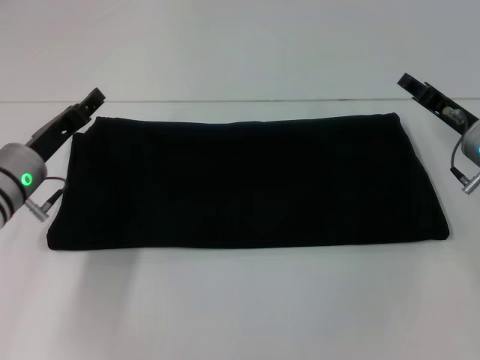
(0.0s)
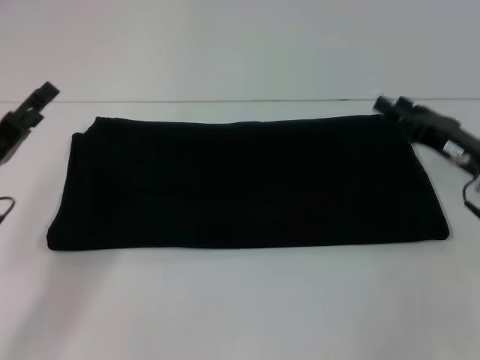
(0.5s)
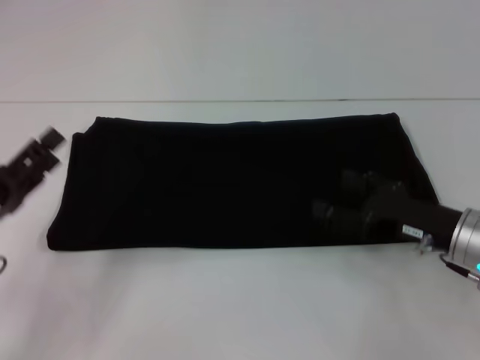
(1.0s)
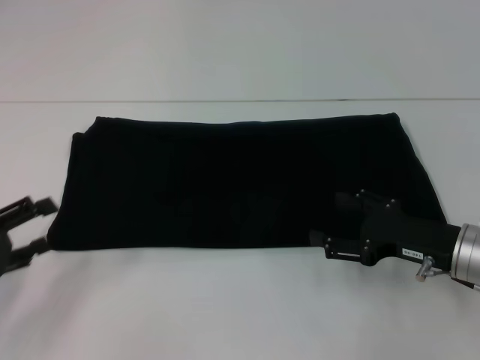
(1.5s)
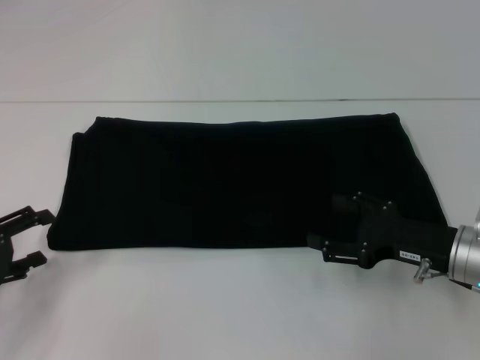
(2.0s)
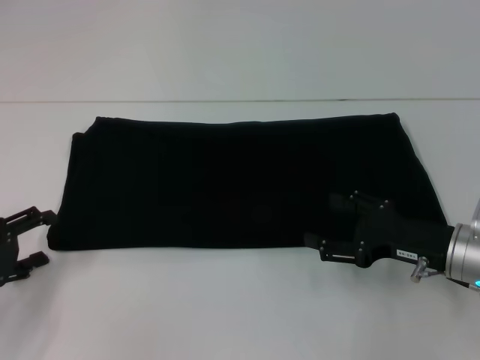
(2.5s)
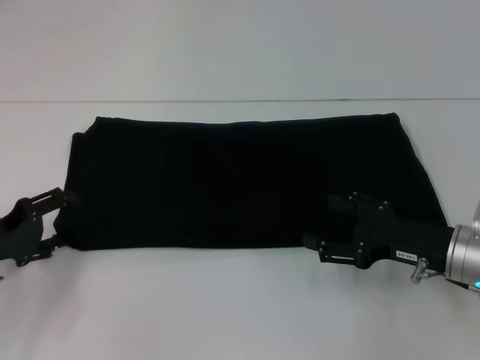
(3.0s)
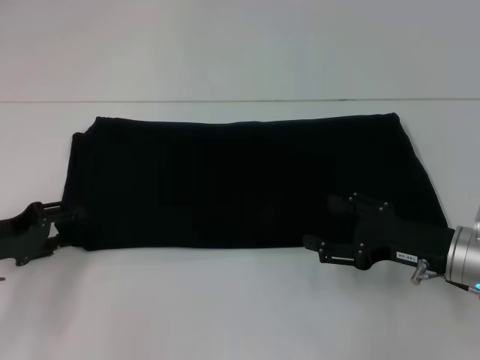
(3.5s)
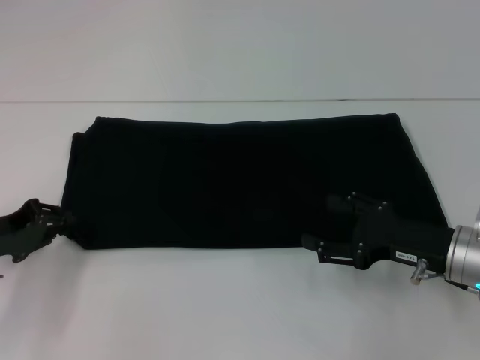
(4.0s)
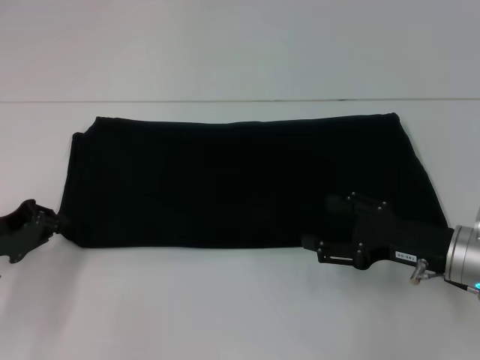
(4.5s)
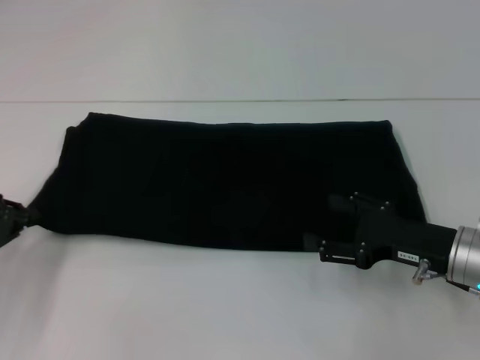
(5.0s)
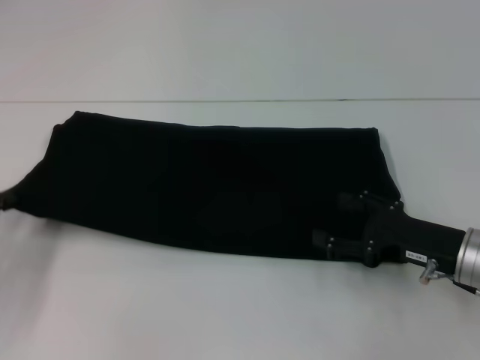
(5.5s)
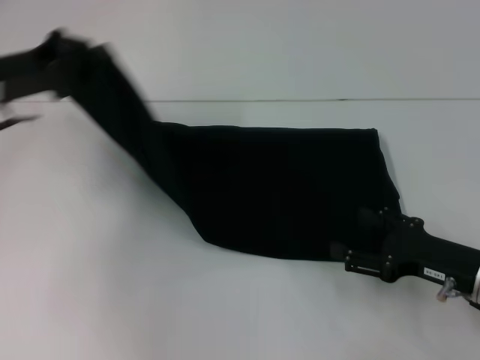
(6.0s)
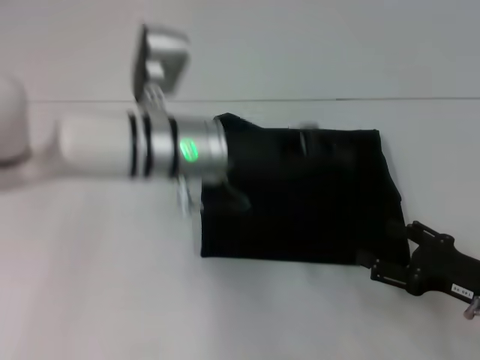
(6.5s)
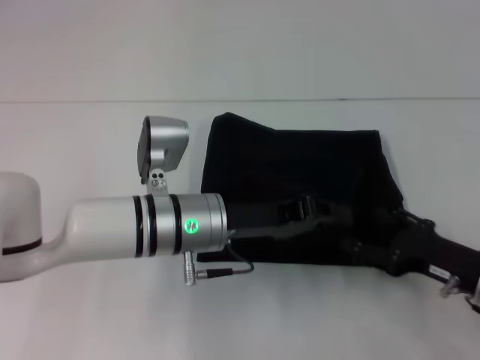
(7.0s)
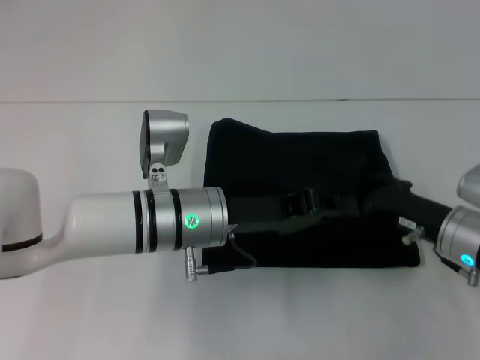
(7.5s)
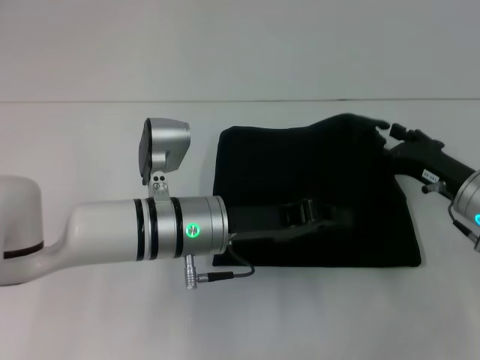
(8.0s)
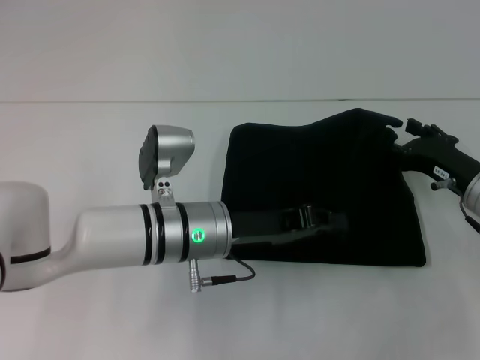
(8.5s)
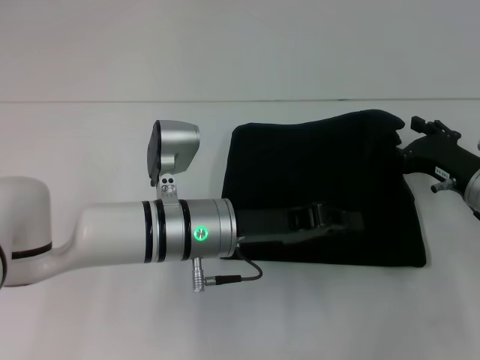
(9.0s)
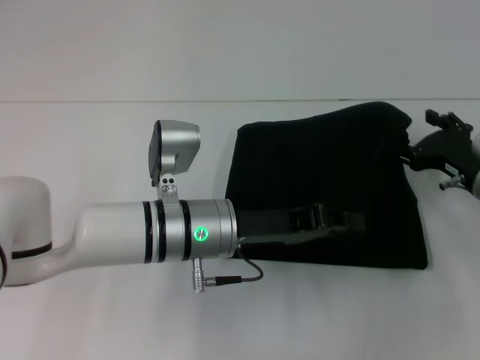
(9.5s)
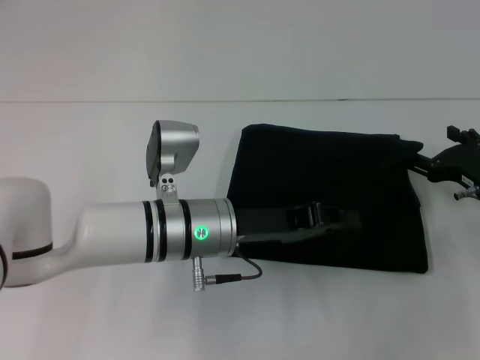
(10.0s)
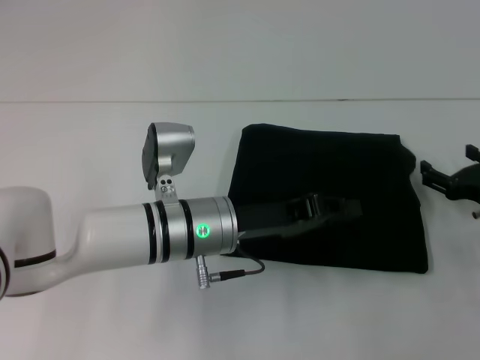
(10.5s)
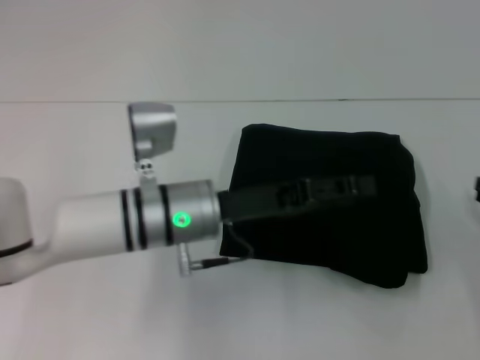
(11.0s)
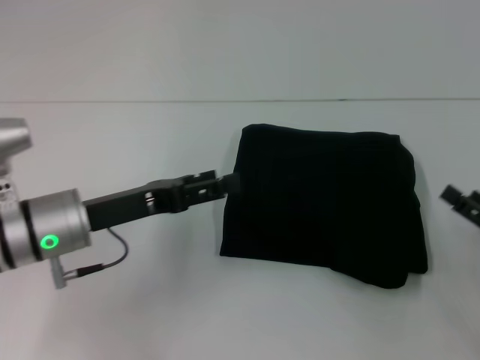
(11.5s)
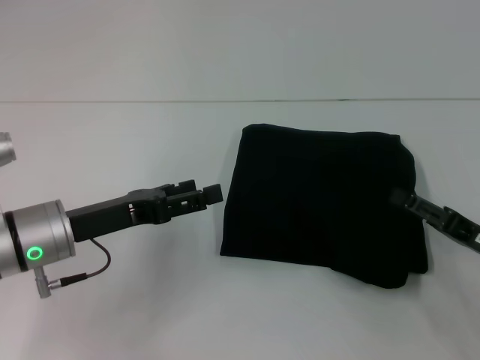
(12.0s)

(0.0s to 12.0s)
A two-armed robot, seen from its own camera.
Step, 0.0s - 10.5s: Fold the clothes with your left hand.
0.0s - 2.0s: The left gripper is displaced backward and to the left by roughly 15 cm, and opens. Meanwhile the right gripper is displaced backward by roughly 10 cm, and opens up.
2.0s - 4.0s: The left gripper ends up some 5 cm from where it was, and closes its fingers.
4.0s - 6.0s: The left gripper goes approximately 15 cm upward and forward.
6.0s - 8.0s: The left gripper heads to the right and downward, covering roughly 25 cm. Meanwhile the right gripper goes approximately 5 cm forward.
10.0s - 12.0s: The left gripper shifts roughly 15 cm to the left, and opens its fingers, while the right gripper heads backward, covering roughly 10 cm.

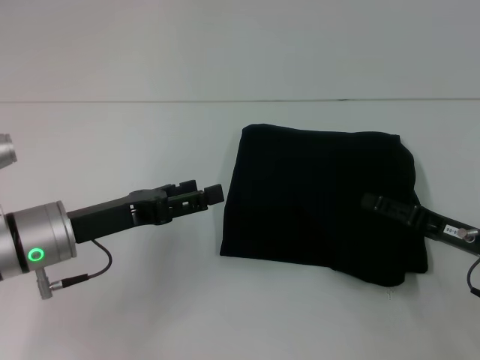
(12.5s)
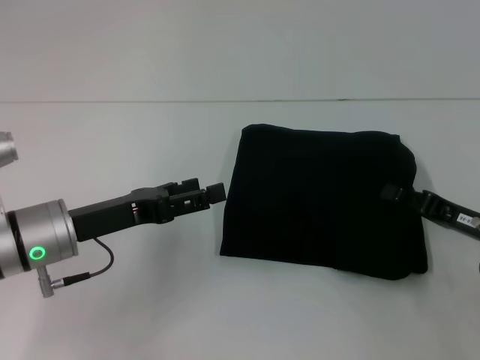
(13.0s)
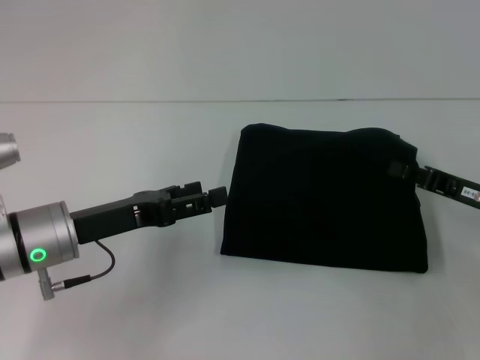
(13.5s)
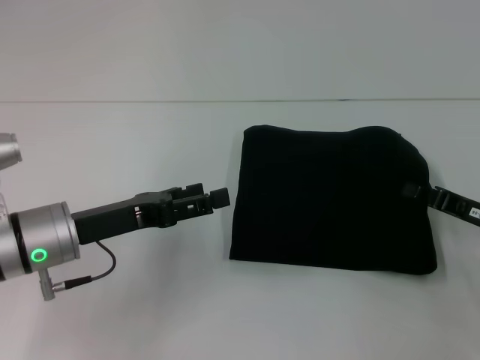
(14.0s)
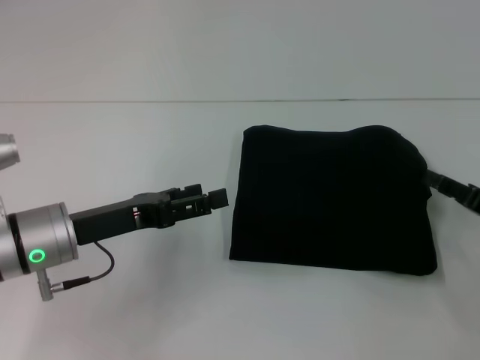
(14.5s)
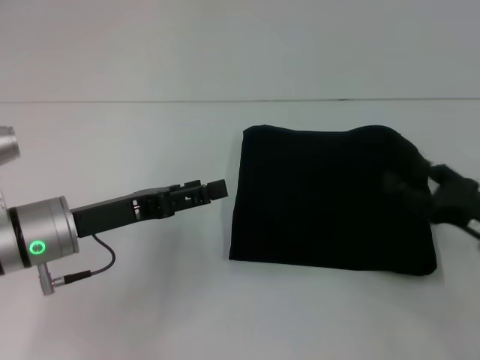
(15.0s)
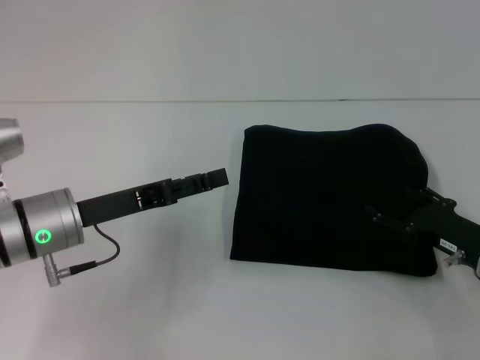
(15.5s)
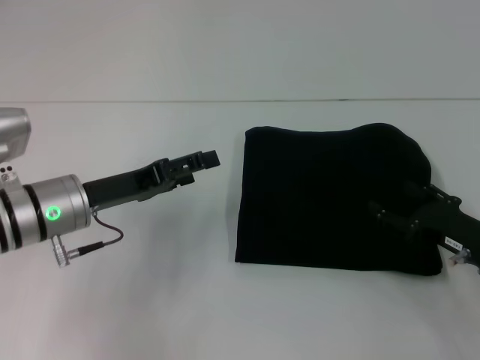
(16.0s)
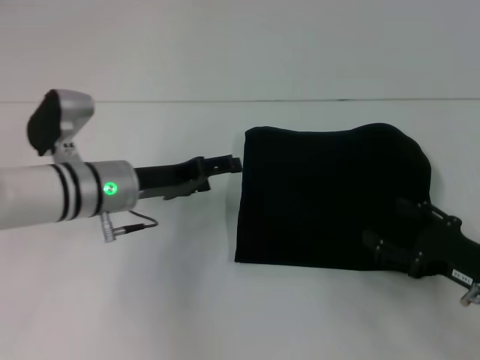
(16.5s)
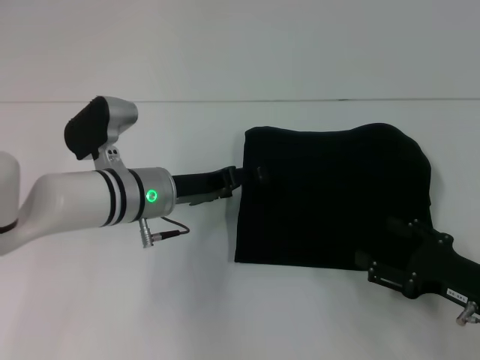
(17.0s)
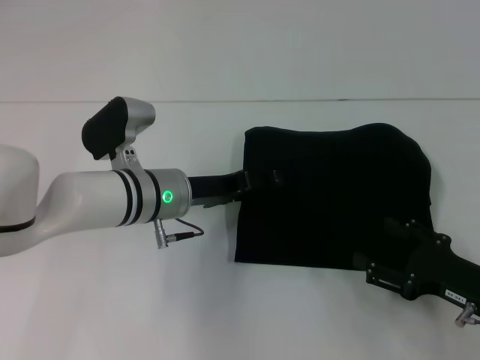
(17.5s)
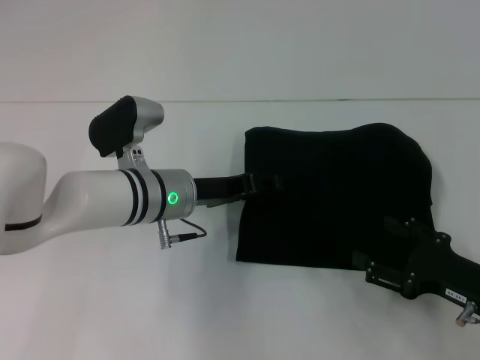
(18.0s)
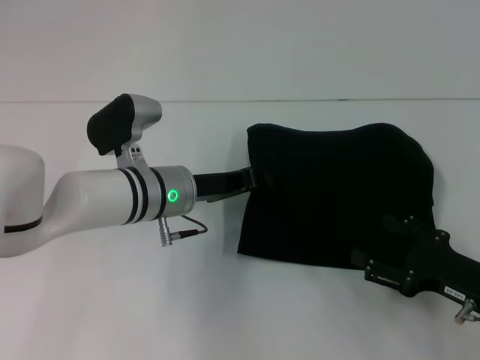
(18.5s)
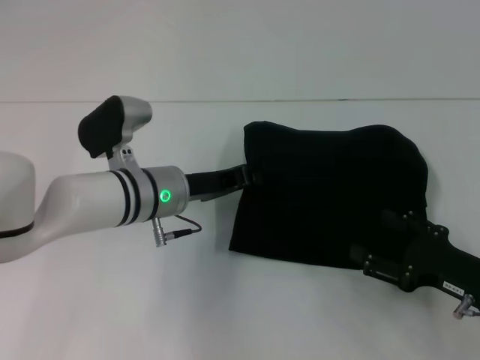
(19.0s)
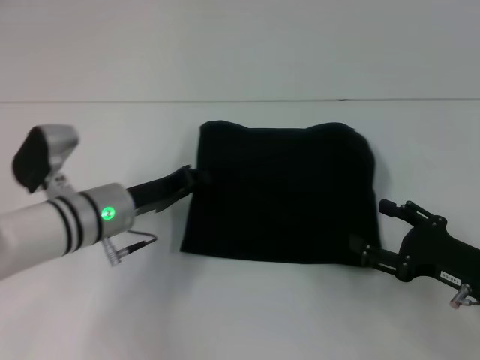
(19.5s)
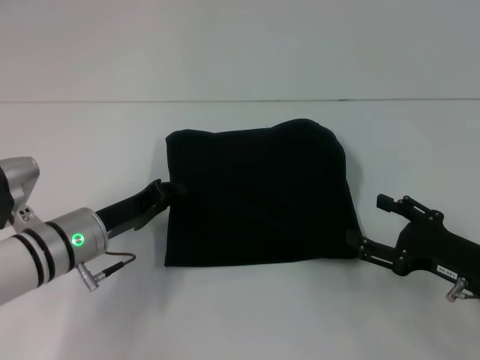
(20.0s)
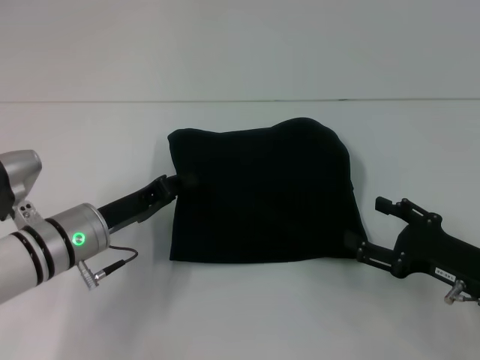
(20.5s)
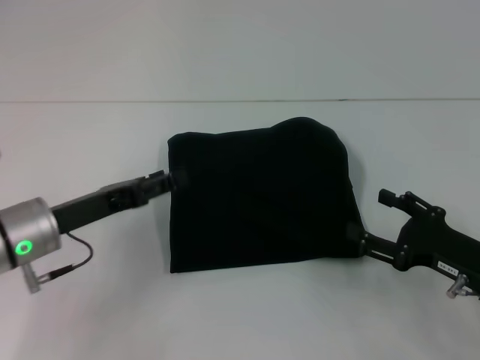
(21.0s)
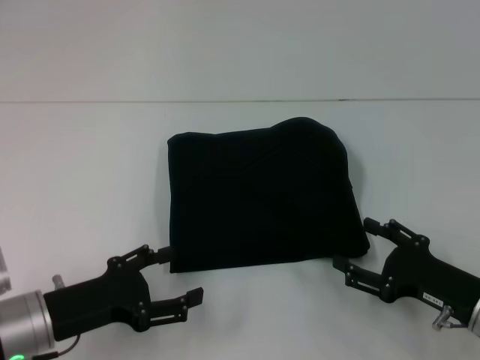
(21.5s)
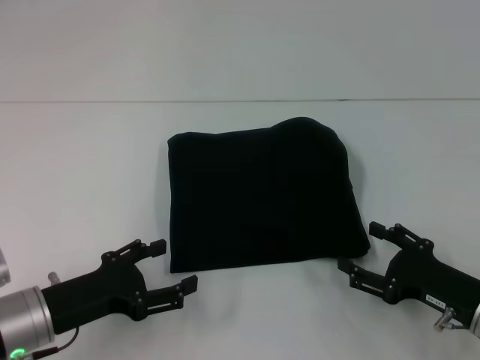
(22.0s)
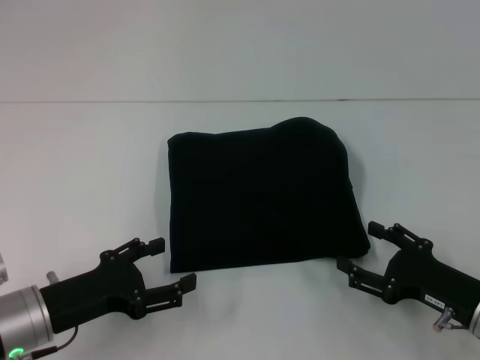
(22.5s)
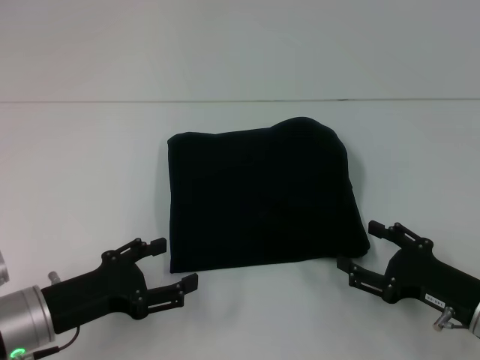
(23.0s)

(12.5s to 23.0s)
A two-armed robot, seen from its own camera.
12.5s - 14.5s: The right gripper closes its fingers.
14.5s - 16.5s: The left gripper travels forward by some 5 cm; the right gripper changes place by approximately 5 cm, and opens its fingers.
16.5s - 19.0s: The left gripper goes some 5 cm to the right, and closes.
19.0s - 21.0s: The left gripper is displaced to the left and backward by approximately 15 cm.
21.0s - 23.0s: The left gripper is displaced backward by roughly 5 cm, and opens up.

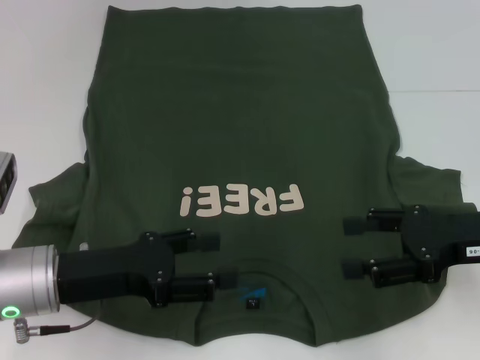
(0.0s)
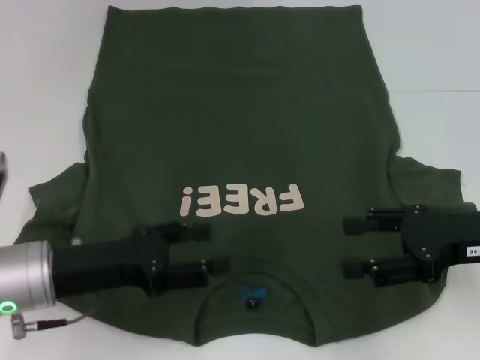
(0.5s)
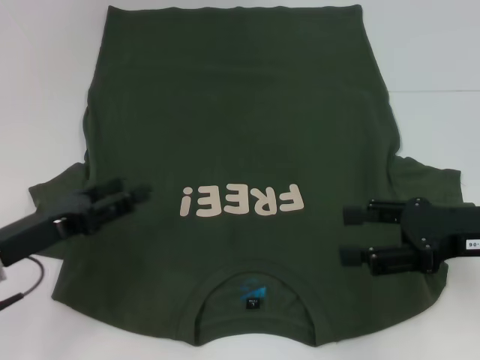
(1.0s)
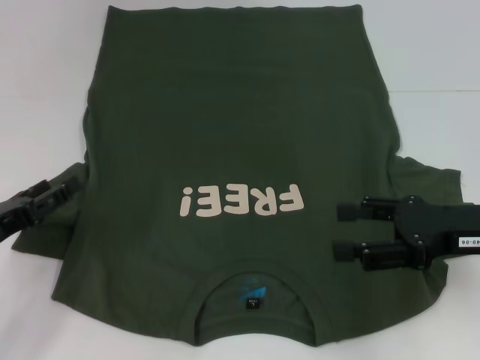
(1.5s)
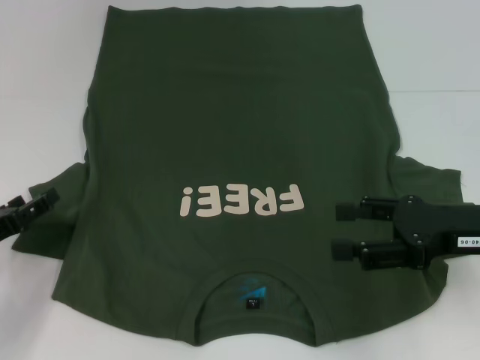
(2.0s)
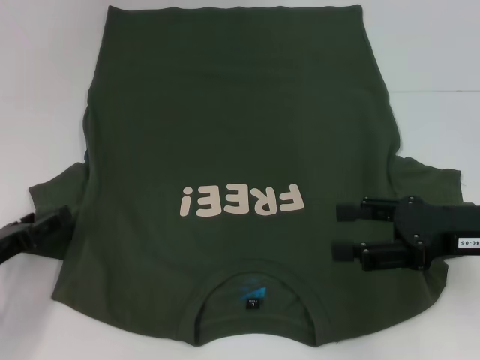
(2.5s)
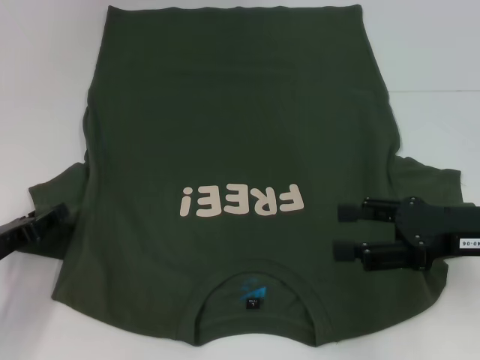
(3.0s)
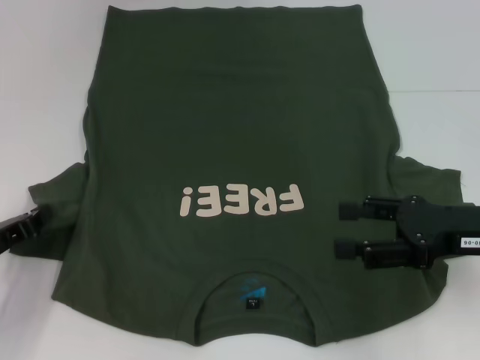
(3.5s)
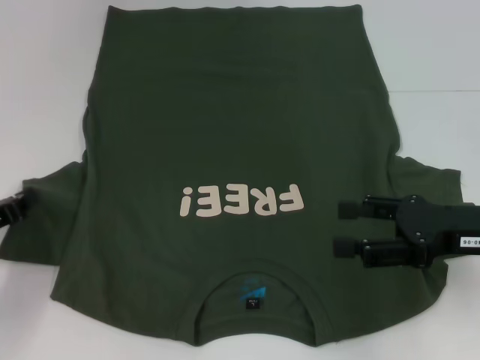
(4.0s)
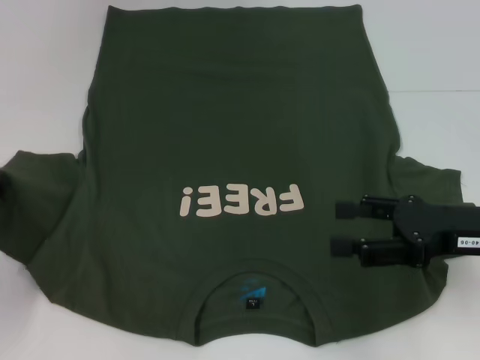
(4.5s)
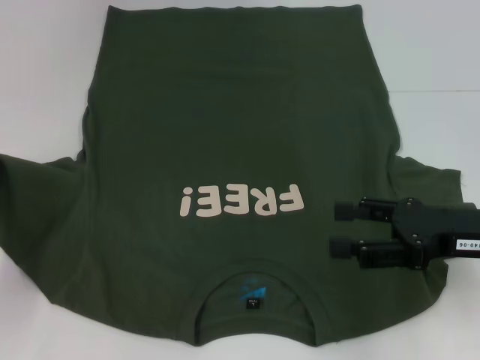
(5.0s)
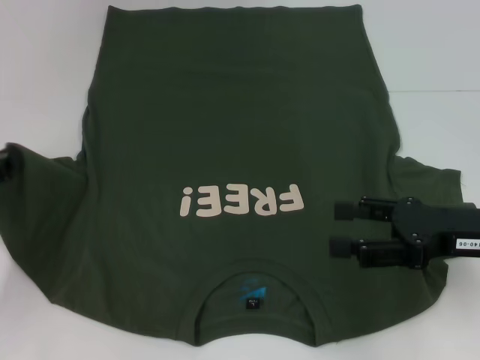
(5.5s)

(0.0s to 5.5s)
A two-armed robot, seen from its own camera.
0.0s - 2.0s: The left gripper heads to the left and downward, covering approximately 10 cm.
2.0s - 3.5s: The left gripper closes.
3.5s - 5.5s: The left gripper shifts by some 5 cm.
